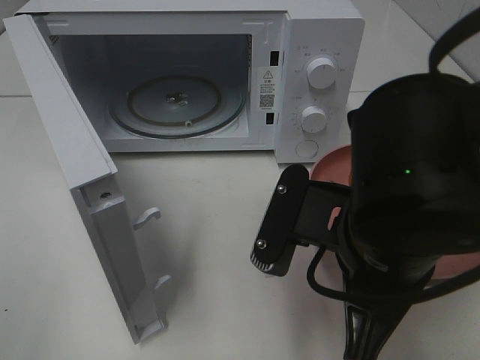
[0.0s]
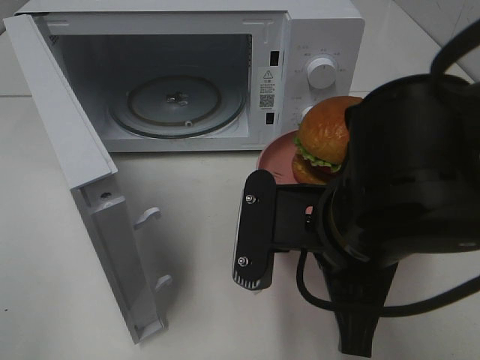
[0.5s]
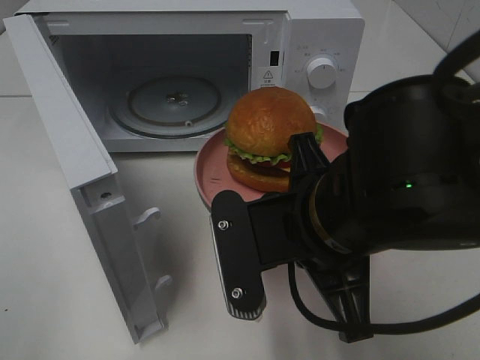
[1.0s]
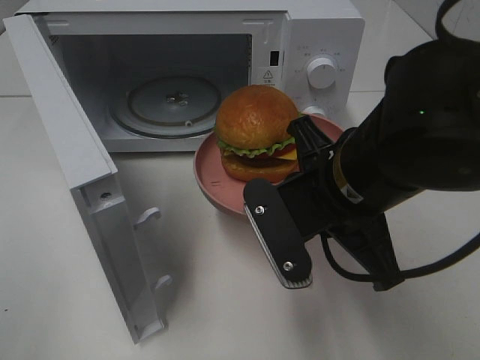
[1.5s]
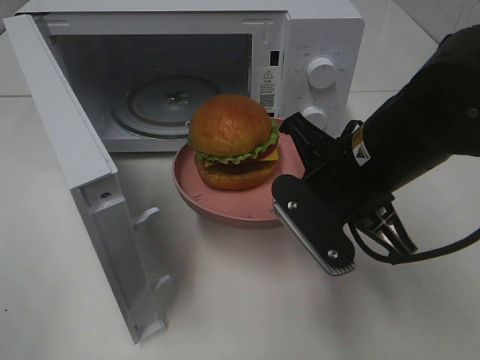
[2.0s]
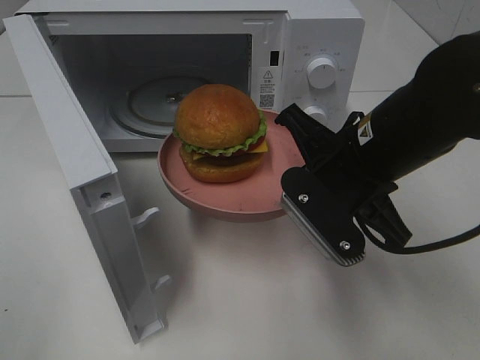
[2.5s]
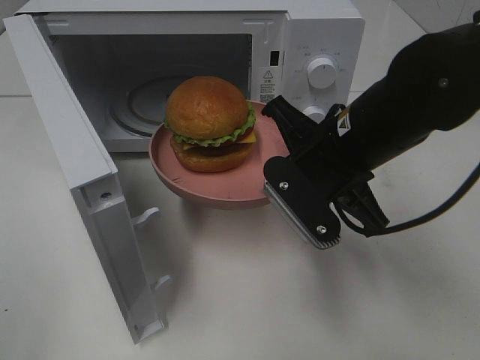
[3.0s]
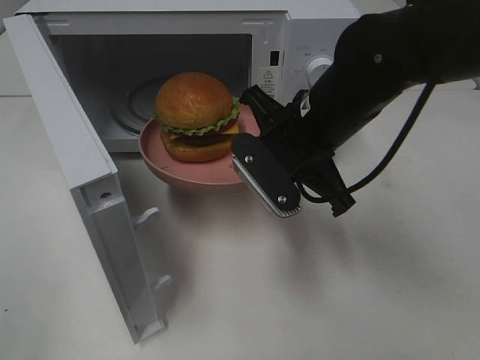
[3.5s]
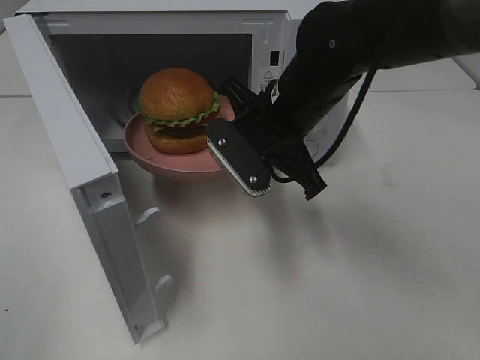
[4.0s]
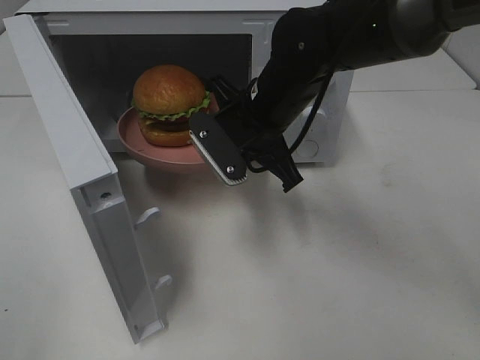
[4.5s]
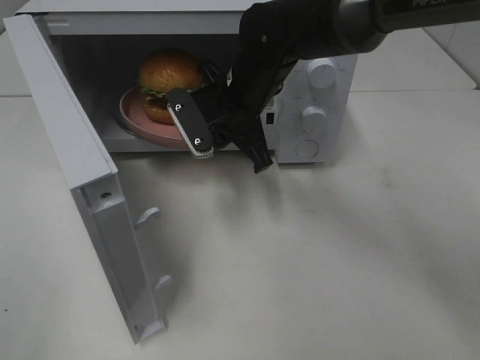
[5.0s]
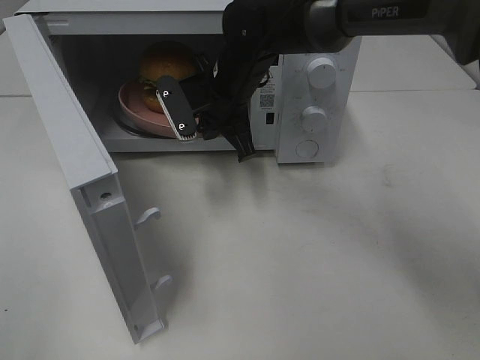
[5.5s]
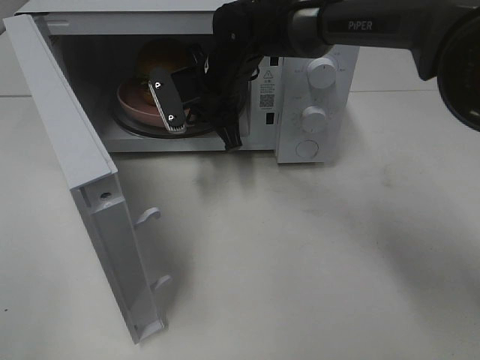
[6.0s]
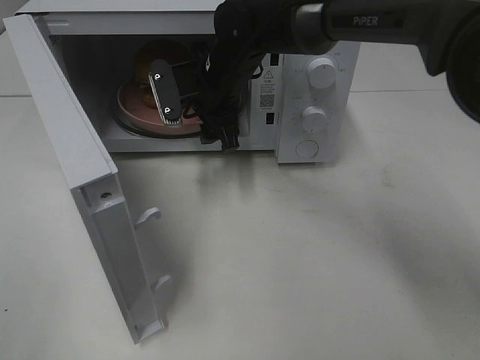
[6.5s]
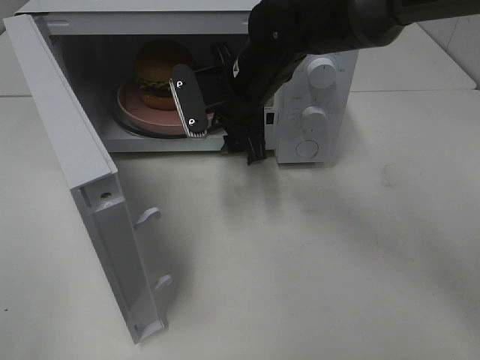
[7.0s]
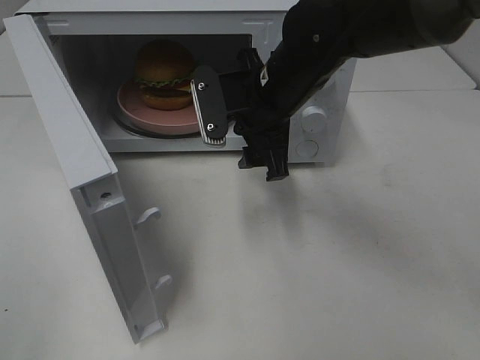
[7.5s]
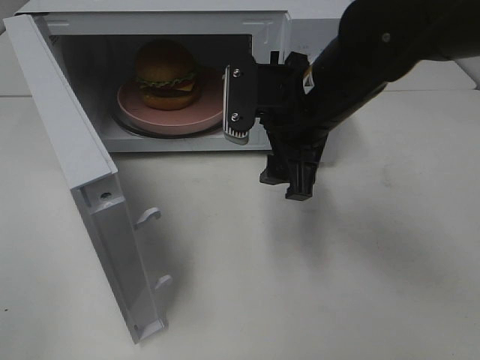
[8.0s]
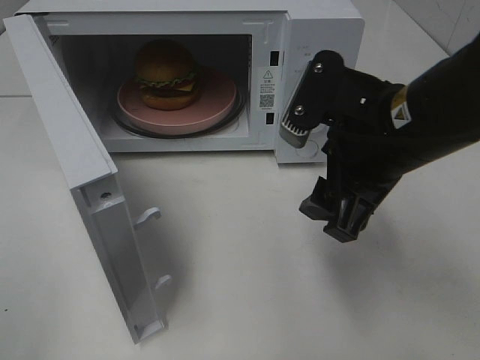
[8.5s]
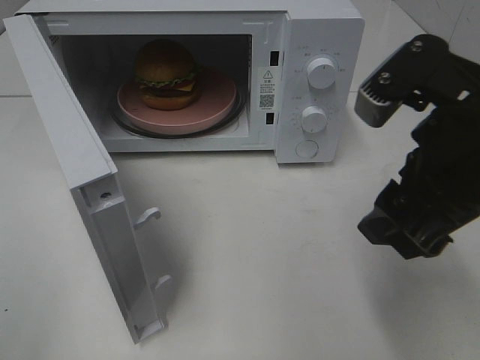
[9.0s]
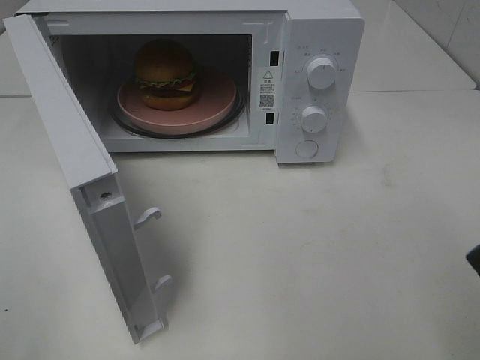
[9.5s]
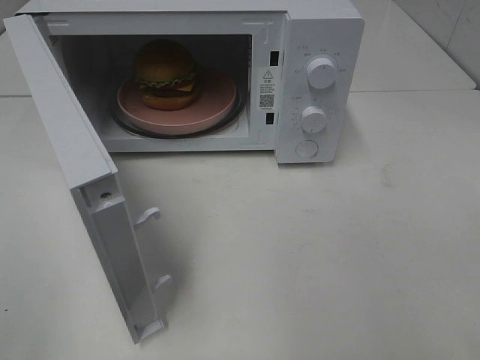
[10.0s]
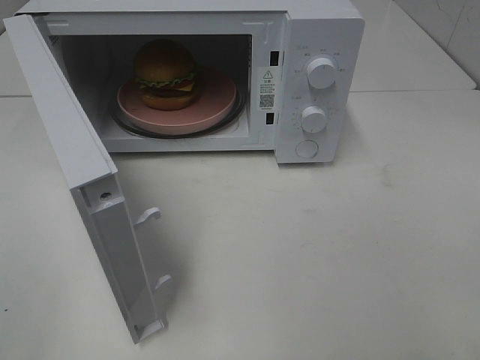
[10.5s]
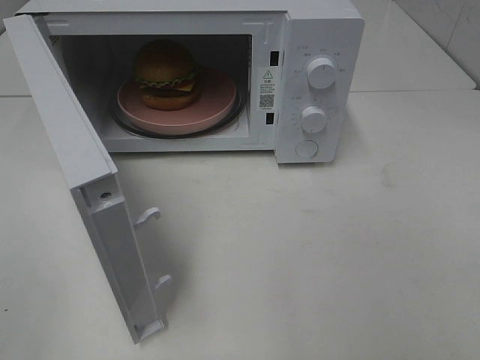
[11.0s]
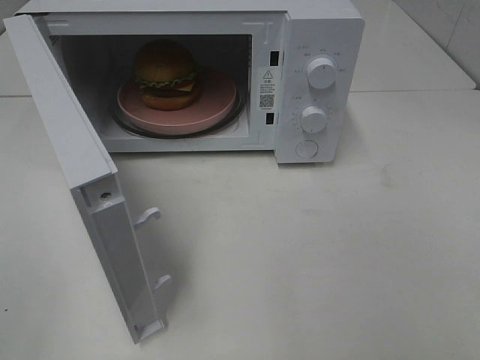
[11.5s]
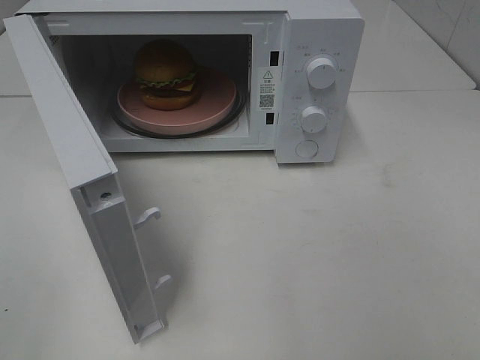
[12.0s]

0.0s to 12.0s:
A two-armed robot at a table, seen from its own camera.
Task of the whole recording: Heat the burger.
Step, 0.0s to 6.0s: Right hand: place the plate in the microwave.
0.0s to 2.0s: The right gripper shifts some 10 cm forward.
2.0s to 4.0s: The right gripper moves forward and to the left, roughly 10 cm.
4.0s to 6.0s: The right gripper moves forward and to the left, about 15 cm.
6.0s to 8.0s: The right gripper moves backward and to the right, some 15 cm, and opens.
8.0s to 10.0s: The right gripper goes about 30 cm backward and to the right.

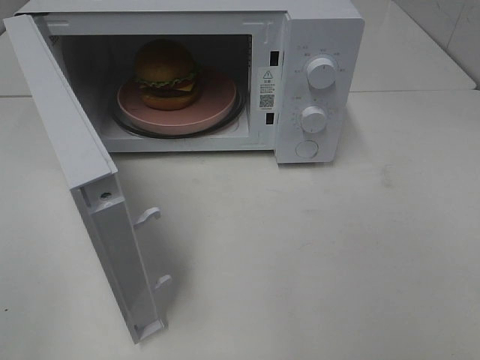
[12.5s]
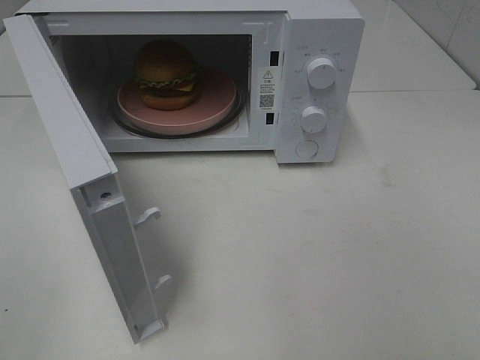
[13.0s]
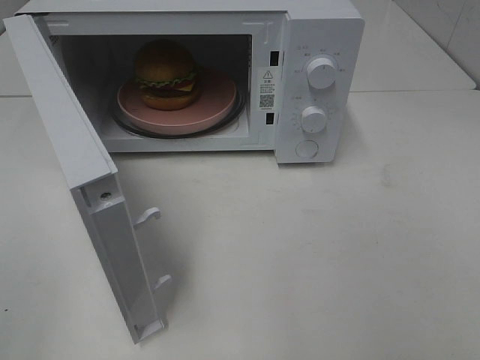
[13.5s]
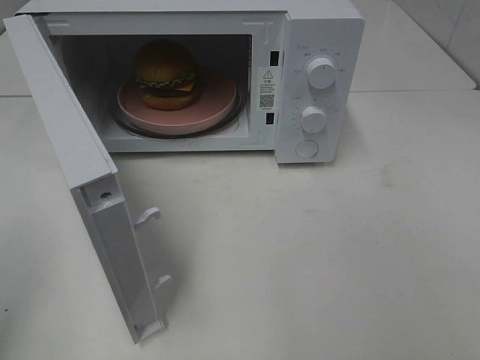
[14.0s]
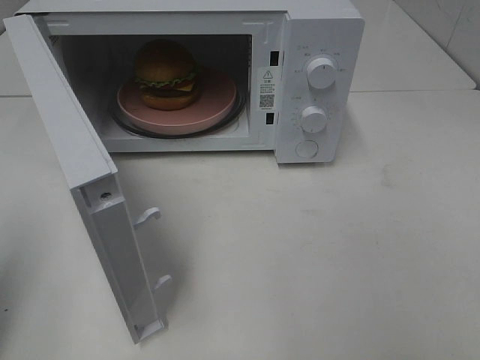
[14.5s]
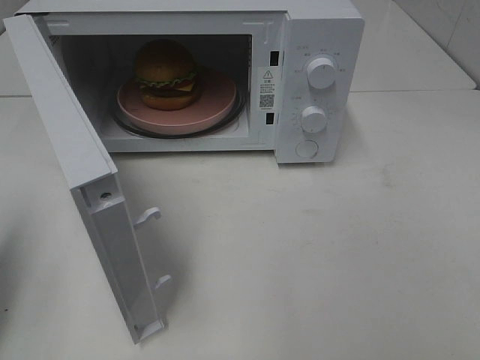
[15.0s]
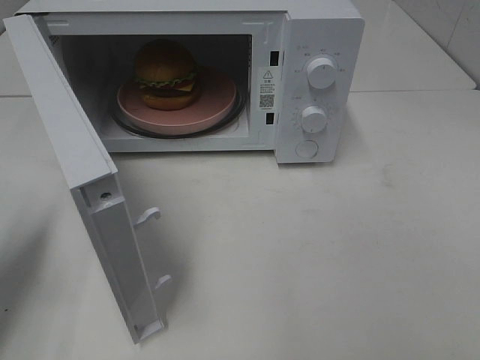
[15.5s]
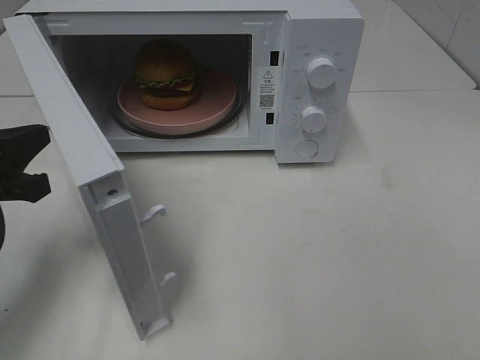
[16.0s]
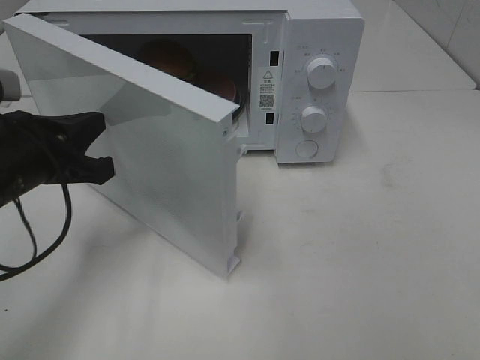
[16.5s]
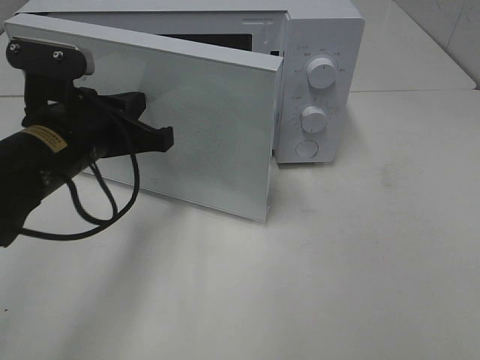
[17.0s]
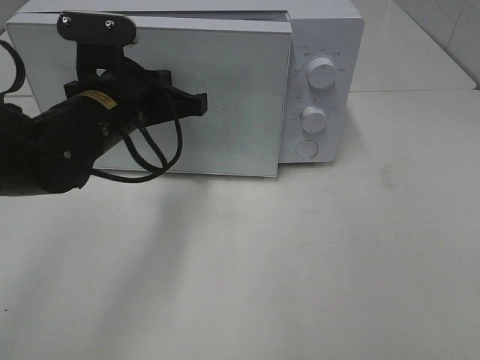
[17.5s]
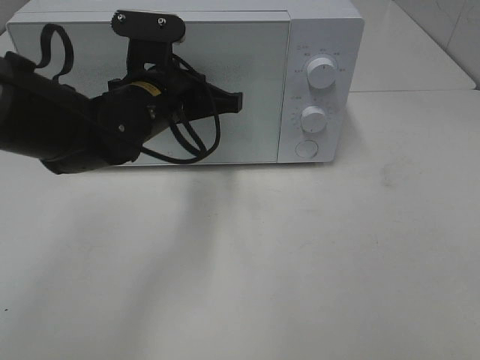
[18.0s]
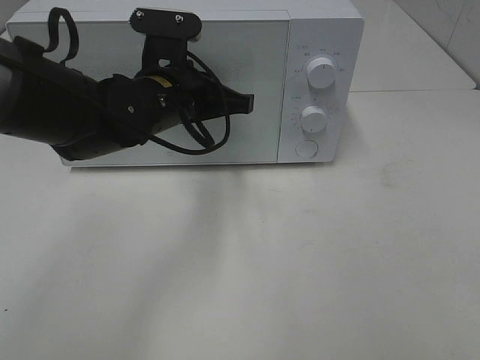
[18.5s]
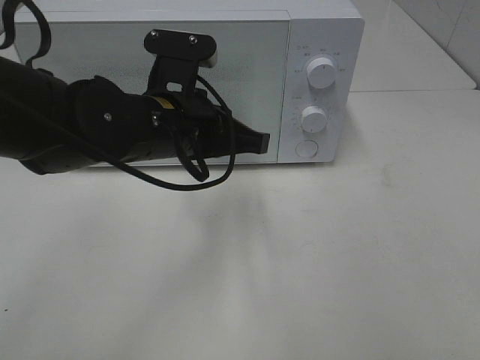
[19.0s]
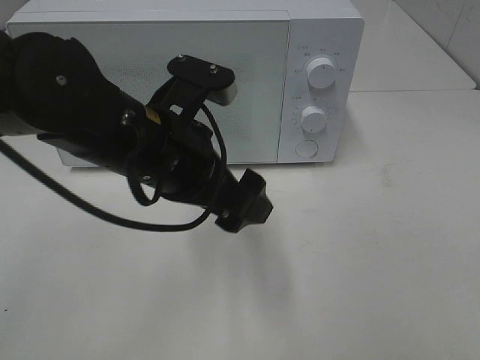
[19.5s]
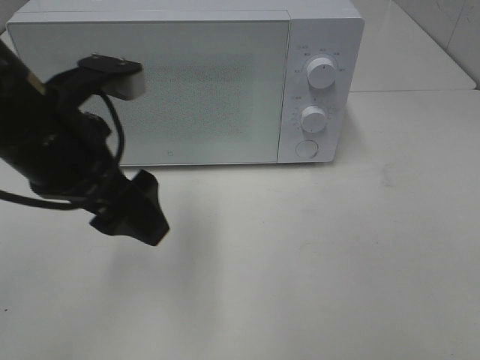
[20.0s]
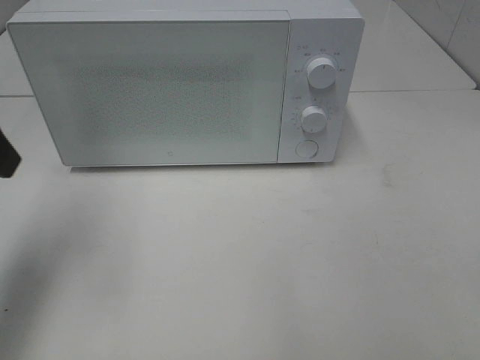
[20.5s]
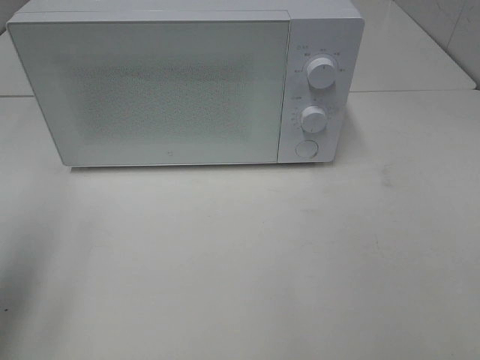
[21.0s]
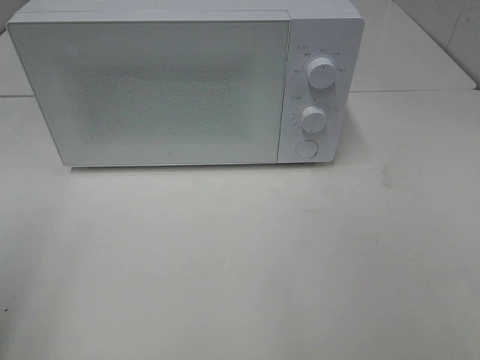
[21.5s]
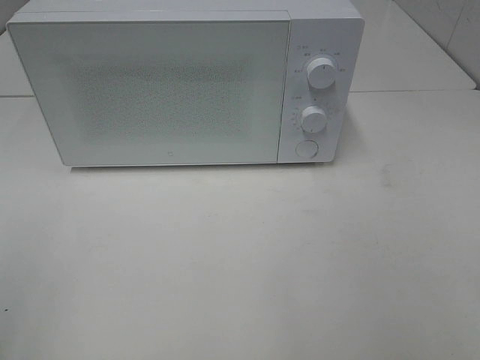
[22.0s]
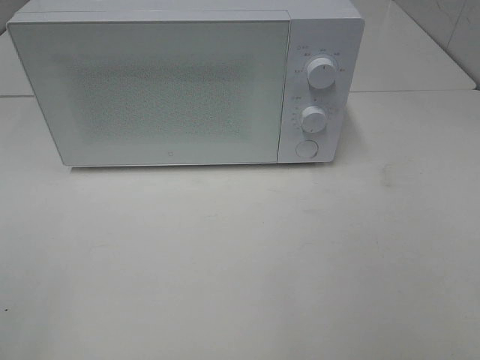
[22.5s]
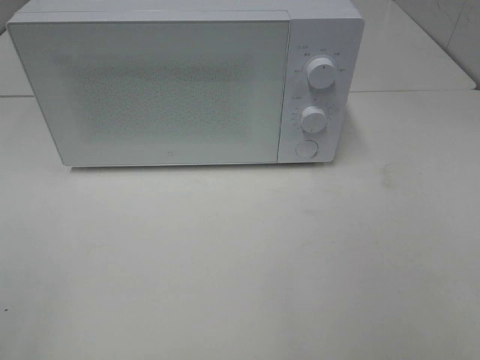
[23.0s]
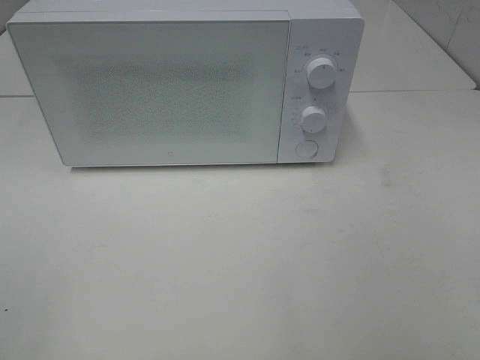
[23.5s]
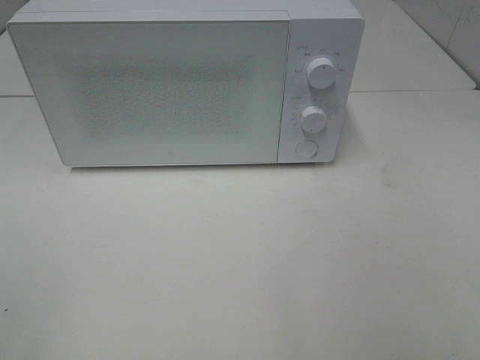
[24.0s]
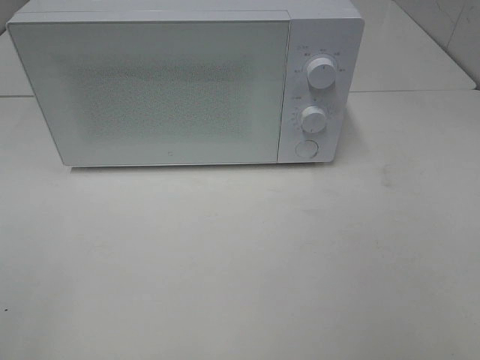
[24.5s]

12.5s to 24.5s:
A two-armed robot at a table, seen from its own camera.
Task of the whole recording: Heat the burger.
Step, 12.5s to 19.0s: Left hand: close the microwave door.
12.5s to 14.5s: The left gripper shifts approximately 10 cm forward, and closes.
14.5s to 16.5s: The left gripper travels forward, to the right and downward by roughly 20 cm.
16.5s to 18.5s: The left gripper is displaced to the right and forward by some 15 cm.
18.5s to 20.5s: The left gripper moves to the left, upward and backward, about 25 cm, and opens.
20.5s to 22.5s: The left gripper shifts approximately 25 cm backward.

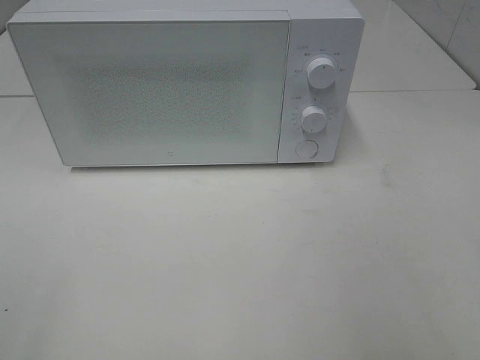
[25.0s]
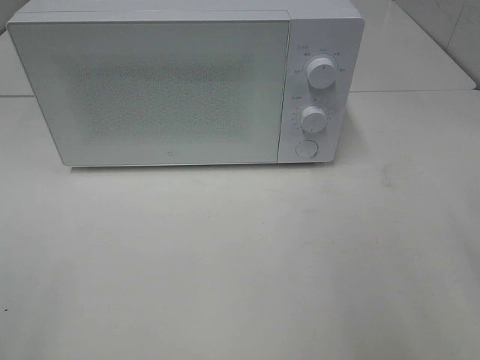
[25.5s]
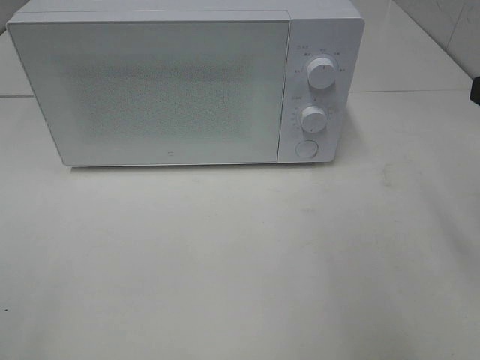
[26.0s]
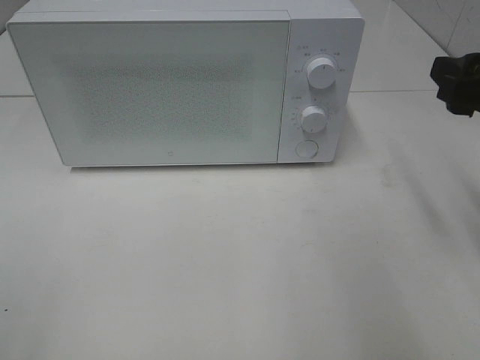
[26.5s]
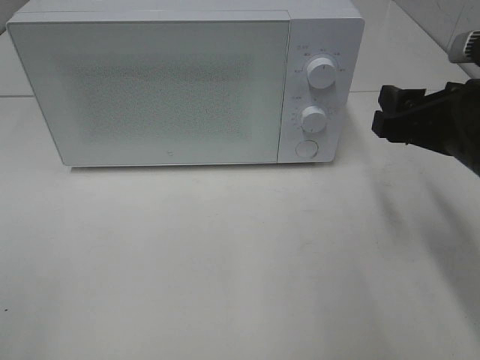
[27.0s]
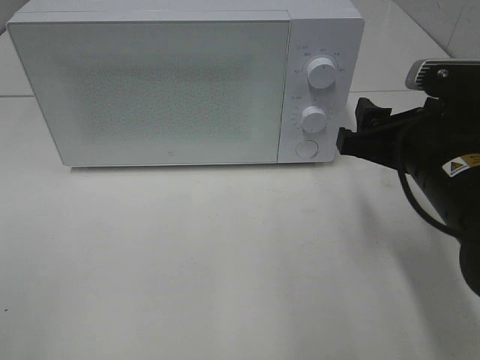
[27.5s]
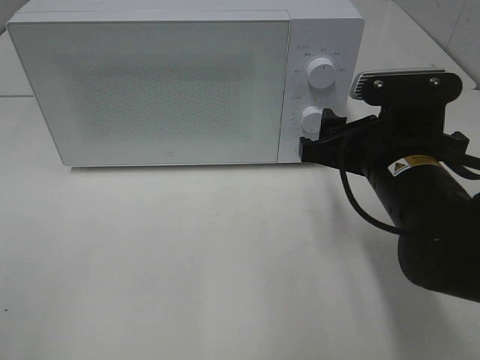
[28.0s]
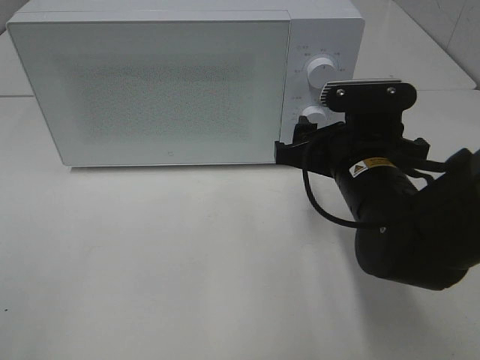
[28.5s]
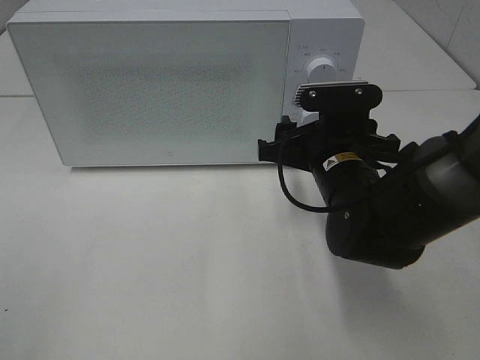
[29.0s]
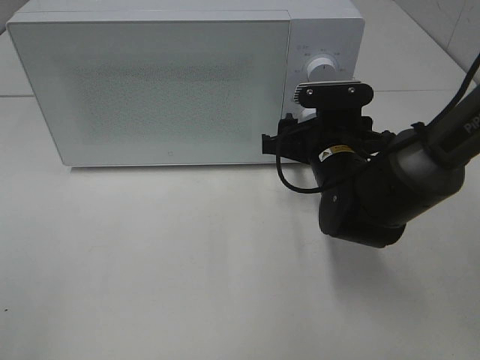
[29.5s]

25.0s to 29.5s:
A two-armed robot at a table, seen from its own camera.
Task of the whole recording: Heat the burger.
25.0s to 27.0s: The right gripper travels forward, downward and to the left by some 20 cm.
27.0s to 29.5s: The right gripper is displaced to the left, downward and forward by about 15 cm.
